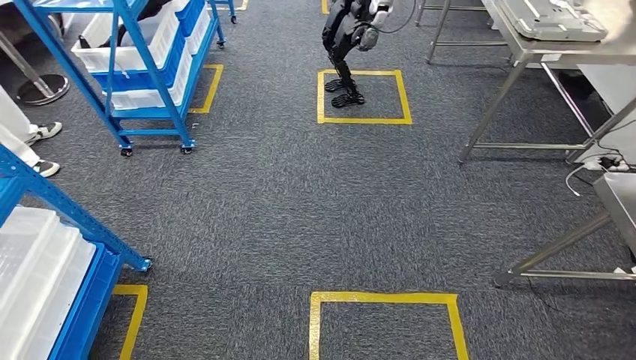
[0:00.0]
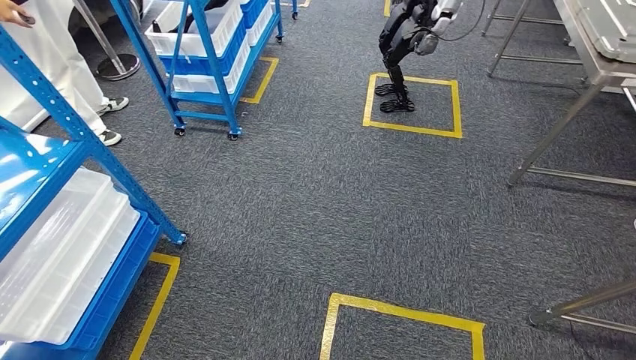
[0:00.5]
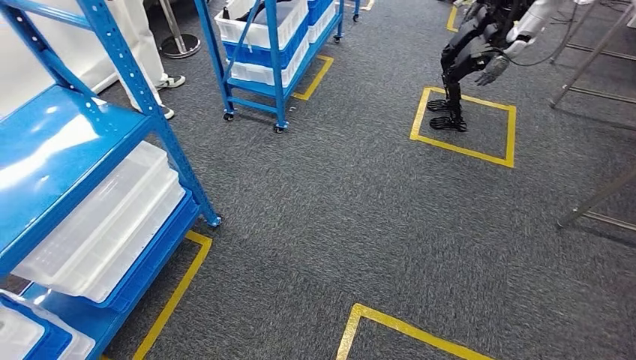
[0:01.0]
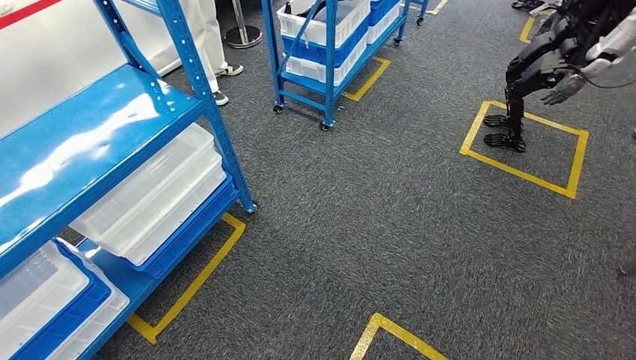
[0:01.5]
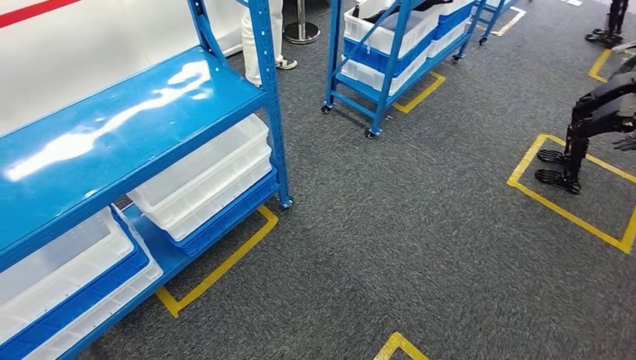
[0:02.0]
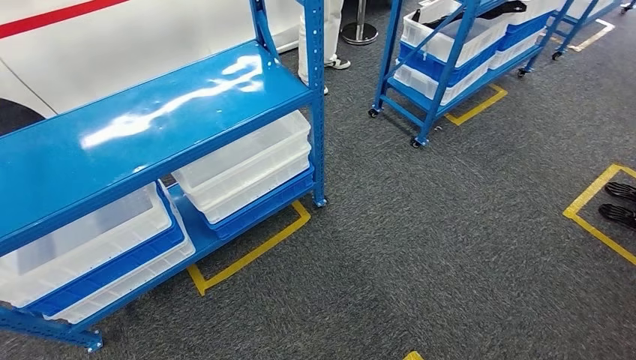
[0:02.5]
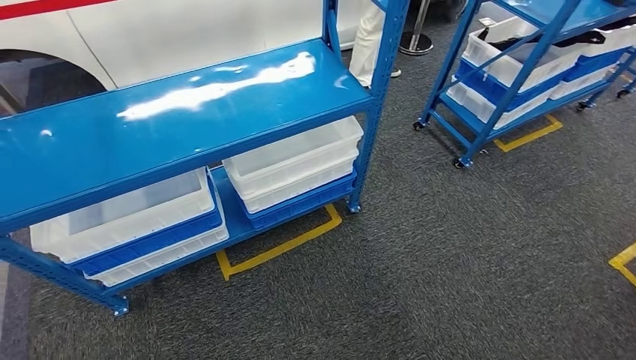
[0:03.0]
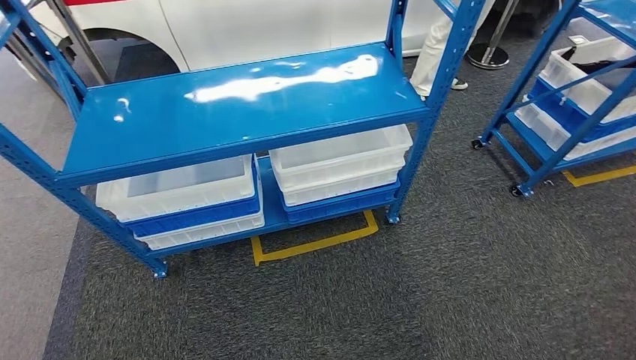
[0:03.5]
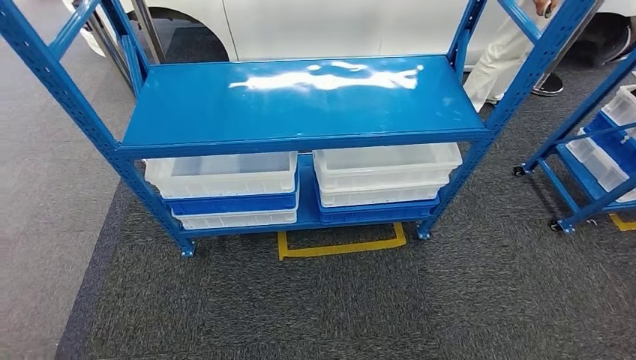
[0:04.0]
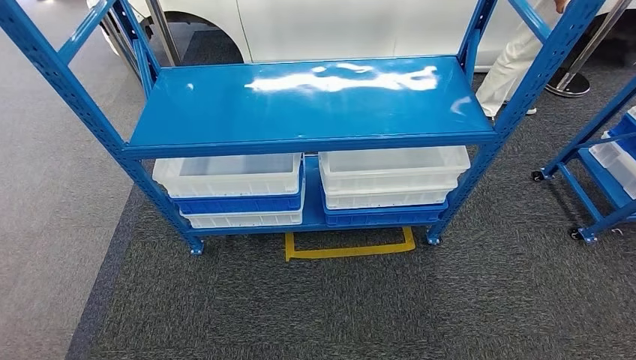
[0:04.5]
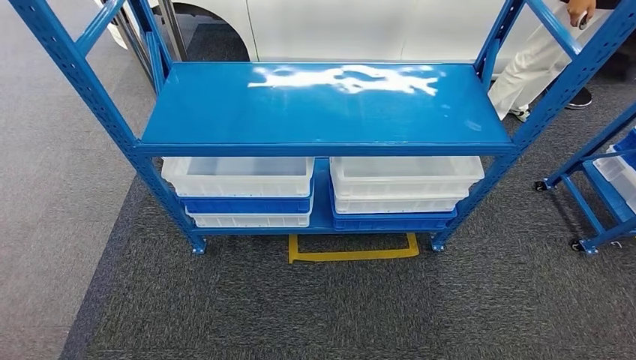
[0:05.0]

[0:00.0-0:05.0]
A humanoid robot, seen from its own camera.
Step, 0:00.0 to 0:05.0: Move to the initial position of the shelf.
